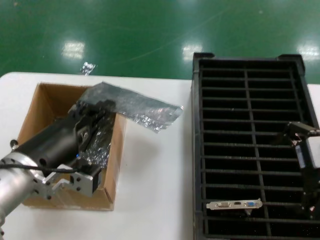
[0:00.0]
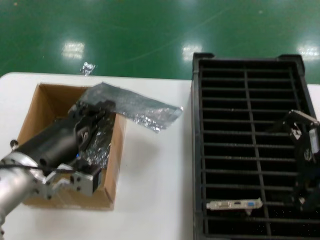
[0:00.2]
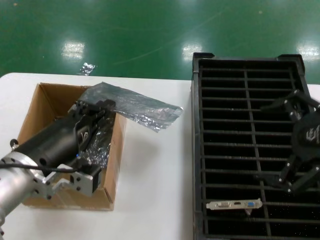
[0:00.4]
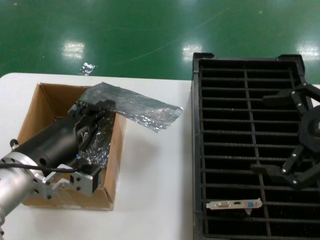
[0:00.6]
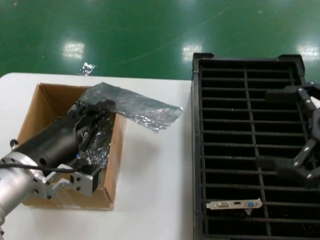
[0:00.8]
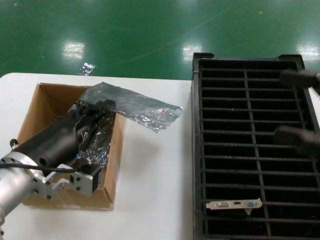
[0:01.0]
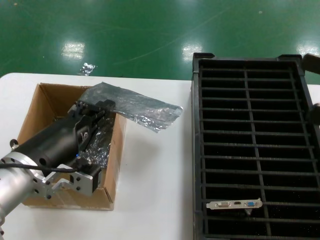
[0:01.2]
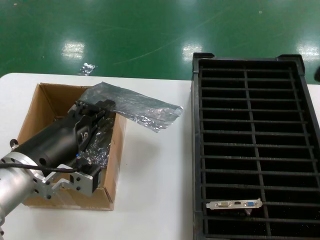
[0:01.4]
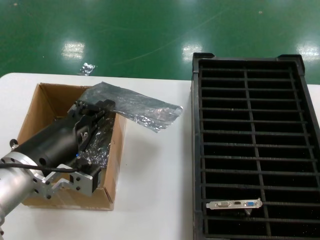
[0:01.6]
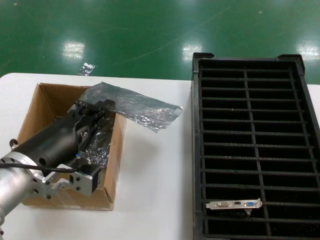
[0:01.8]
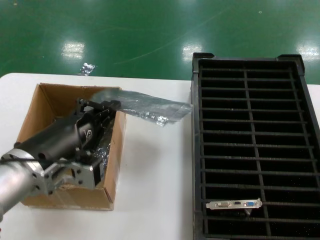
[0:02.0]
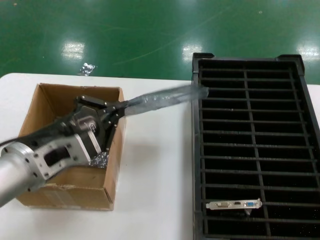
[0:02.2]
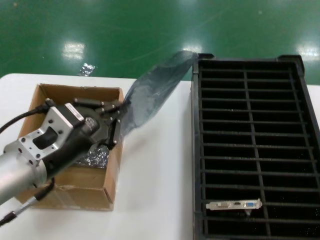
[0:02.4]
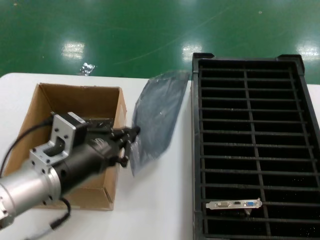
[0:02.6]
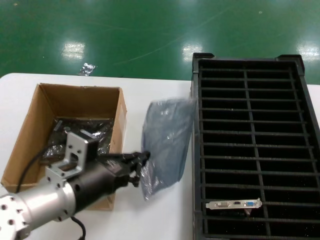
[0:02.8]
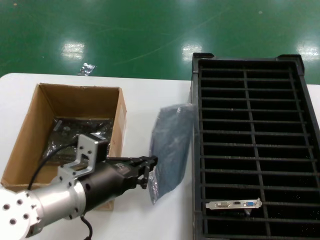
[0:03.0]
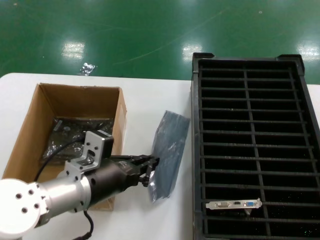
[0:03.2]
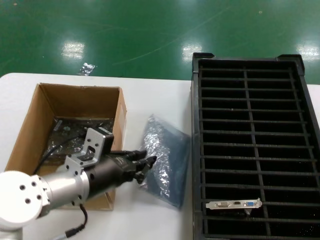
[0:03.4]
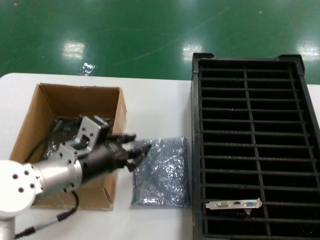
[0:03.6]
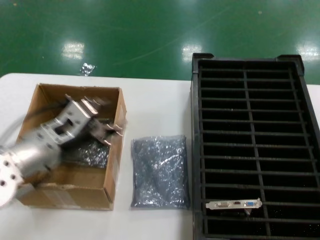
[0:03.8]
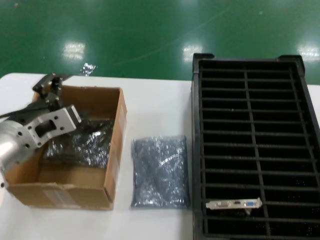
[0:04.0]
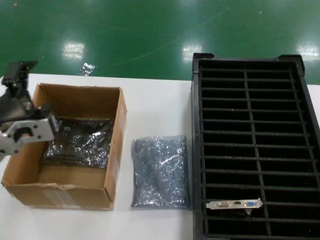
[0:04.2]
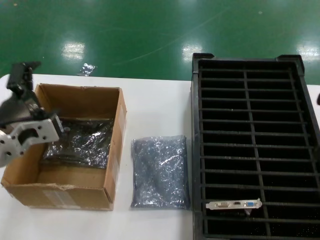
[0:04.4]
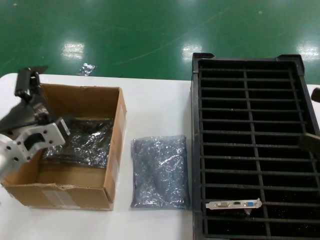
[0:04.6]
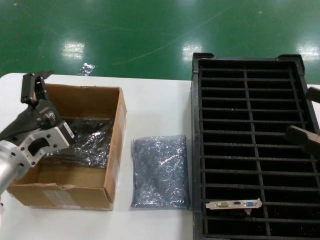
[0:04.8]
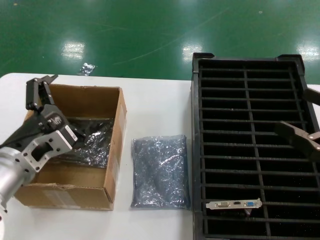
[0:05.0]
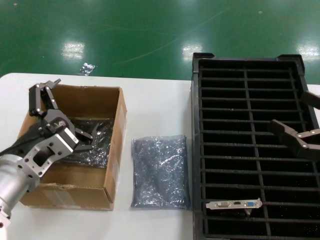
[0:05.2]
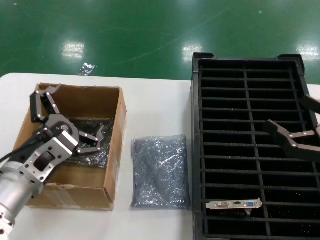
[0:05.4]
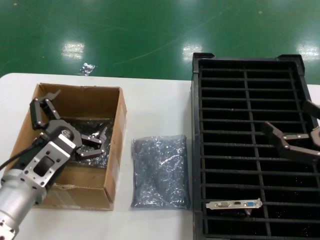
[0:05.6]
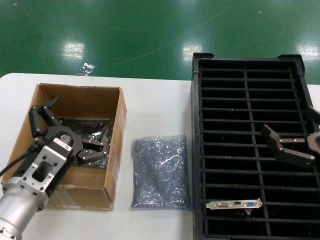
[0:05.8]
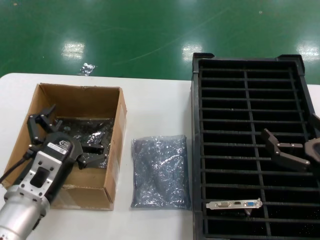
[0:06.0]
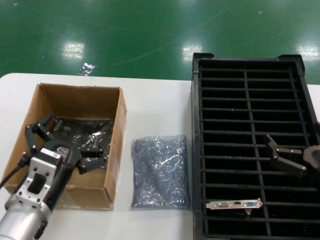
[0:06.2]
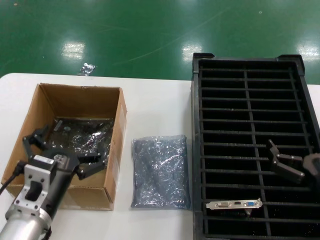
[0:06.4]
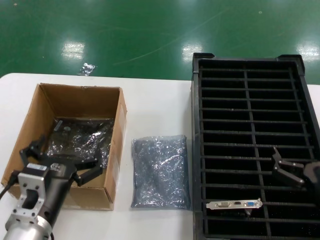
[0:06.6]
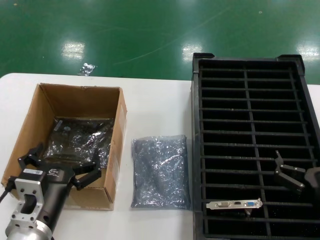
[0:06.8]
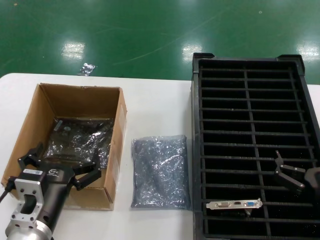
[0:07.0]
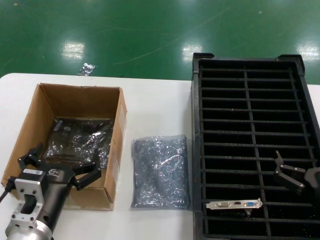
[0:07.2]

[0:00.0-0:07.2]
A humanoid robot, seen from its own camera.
Task of the whole recording: take out graphics card from box remove packaging put into black container.
Step, 0:00.0 to 0:03.4: Place the down the bag.
0:00.0 to 0:01.4: The right hand travels to the right by roughly 15 cm.
0:02.8 to 0:04.4: The left hand is displaced to the left by about 5 cm.
0:04.4 to 0:05.8: The left hand travels downward by roughly 10 cm. The right hand goes roughly 15 cm downward and to the left.
0:05.8 to 0:07.2: The left hand moves downward, roughly 5 cm, while the right hand goes about 10 cm downward and to the left.

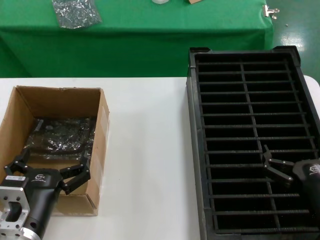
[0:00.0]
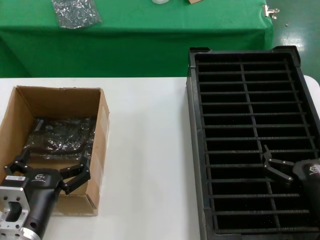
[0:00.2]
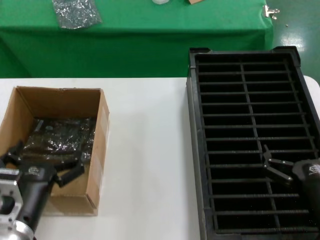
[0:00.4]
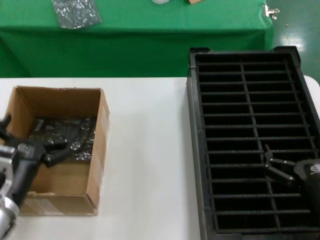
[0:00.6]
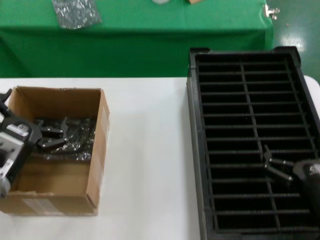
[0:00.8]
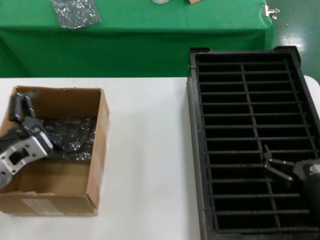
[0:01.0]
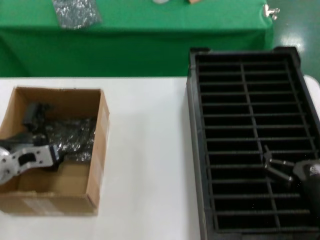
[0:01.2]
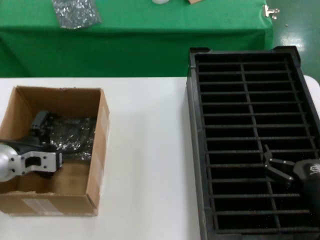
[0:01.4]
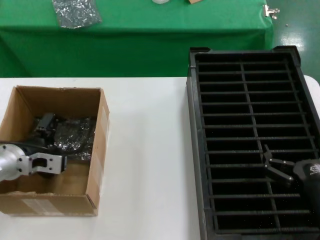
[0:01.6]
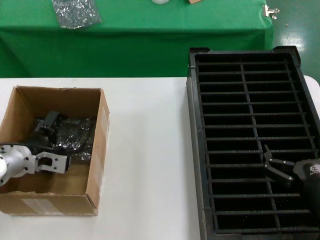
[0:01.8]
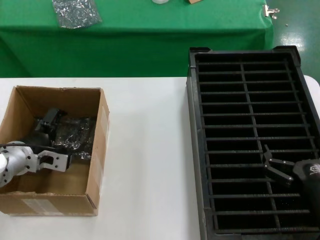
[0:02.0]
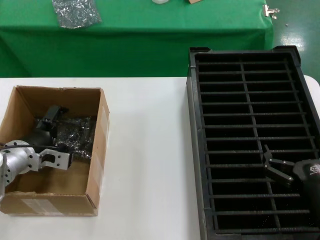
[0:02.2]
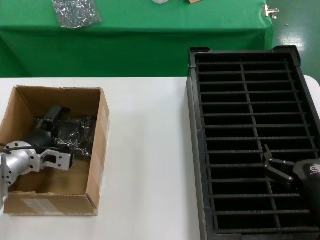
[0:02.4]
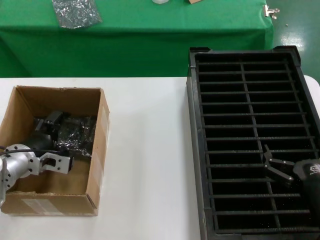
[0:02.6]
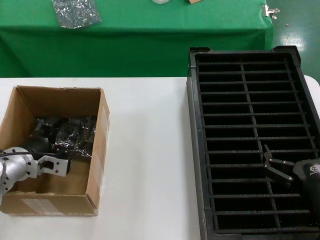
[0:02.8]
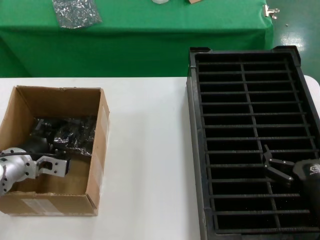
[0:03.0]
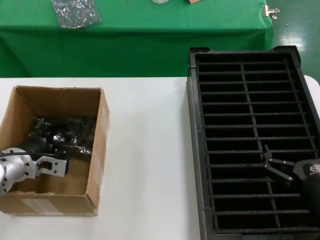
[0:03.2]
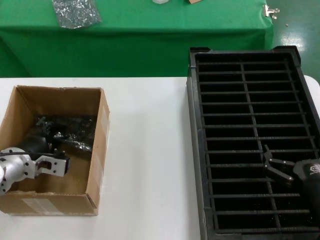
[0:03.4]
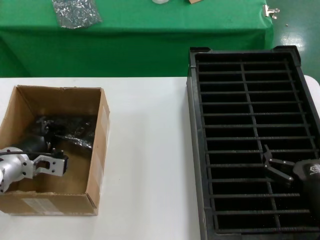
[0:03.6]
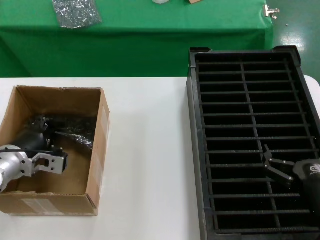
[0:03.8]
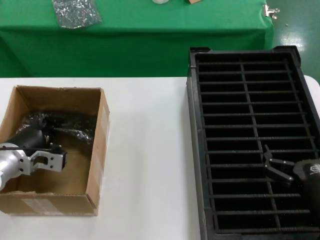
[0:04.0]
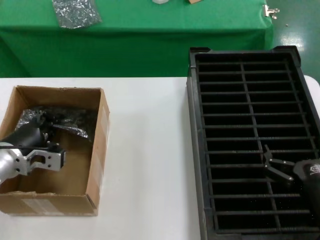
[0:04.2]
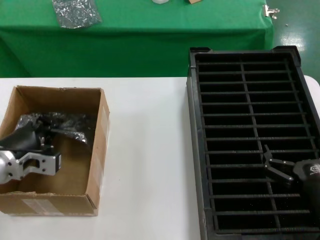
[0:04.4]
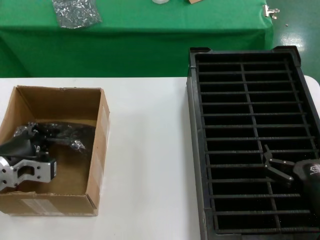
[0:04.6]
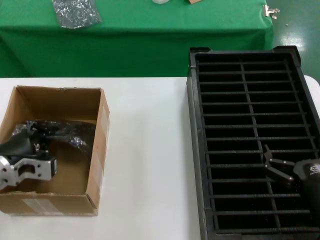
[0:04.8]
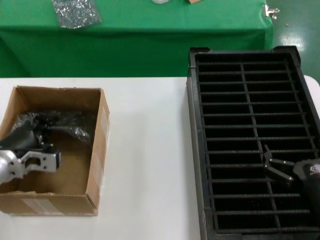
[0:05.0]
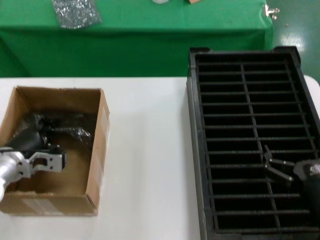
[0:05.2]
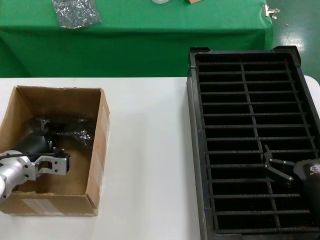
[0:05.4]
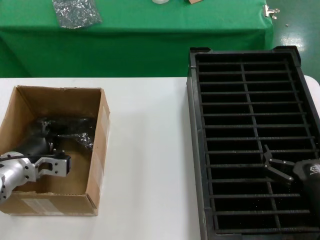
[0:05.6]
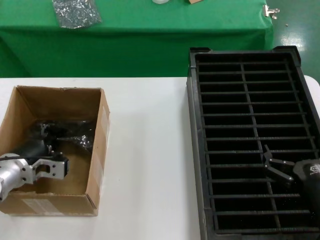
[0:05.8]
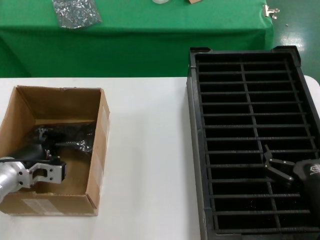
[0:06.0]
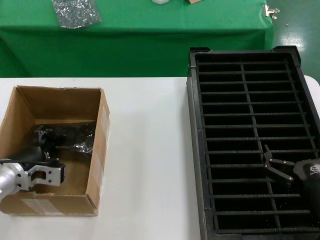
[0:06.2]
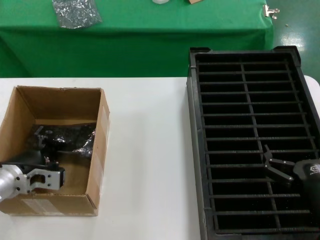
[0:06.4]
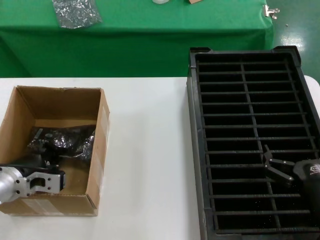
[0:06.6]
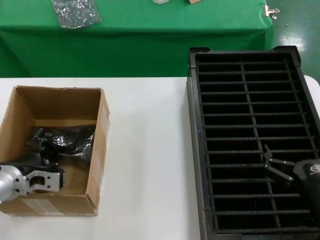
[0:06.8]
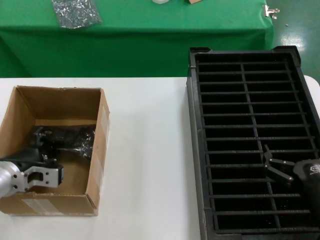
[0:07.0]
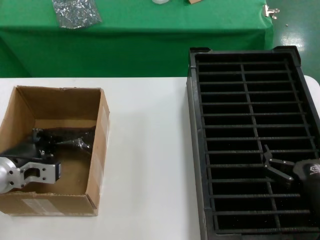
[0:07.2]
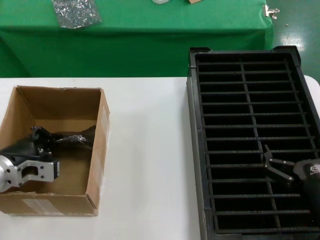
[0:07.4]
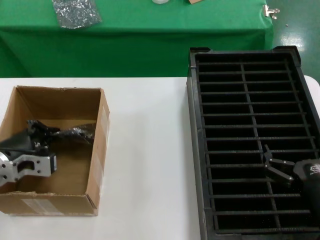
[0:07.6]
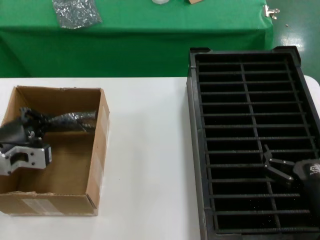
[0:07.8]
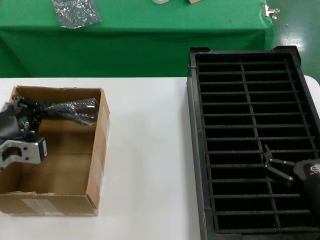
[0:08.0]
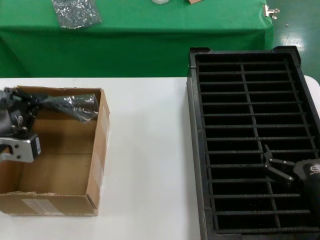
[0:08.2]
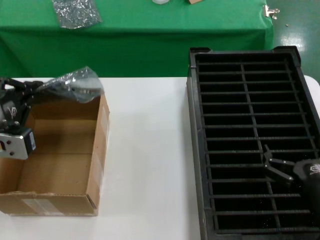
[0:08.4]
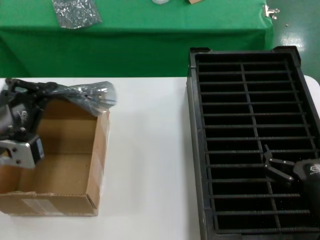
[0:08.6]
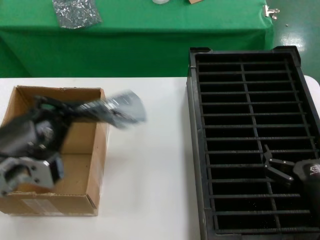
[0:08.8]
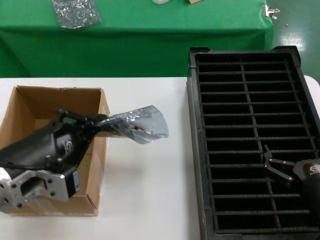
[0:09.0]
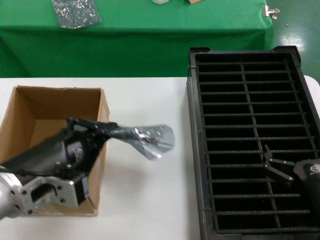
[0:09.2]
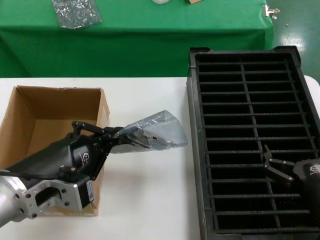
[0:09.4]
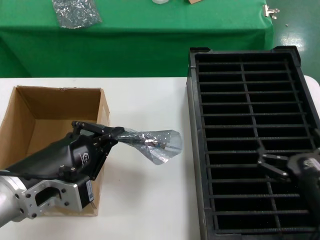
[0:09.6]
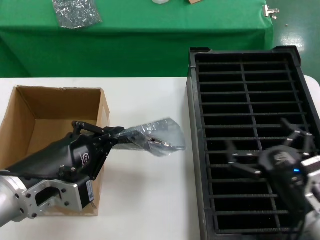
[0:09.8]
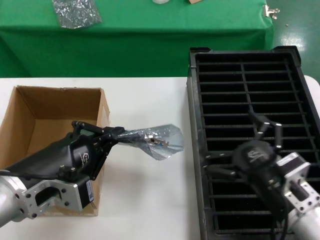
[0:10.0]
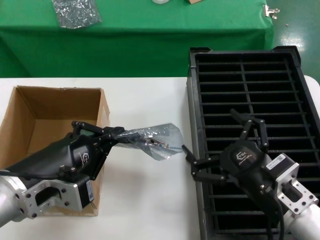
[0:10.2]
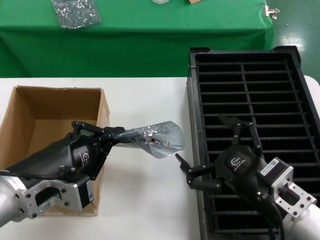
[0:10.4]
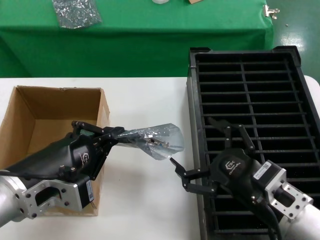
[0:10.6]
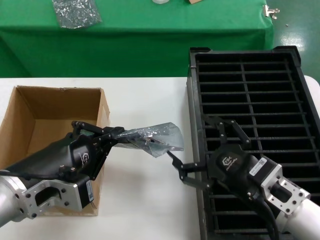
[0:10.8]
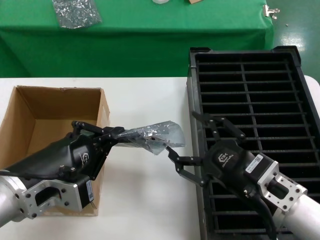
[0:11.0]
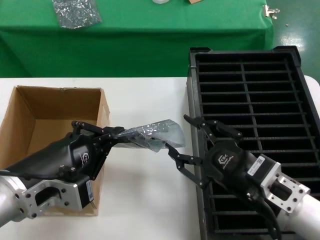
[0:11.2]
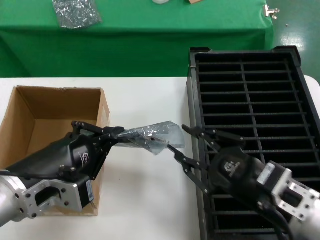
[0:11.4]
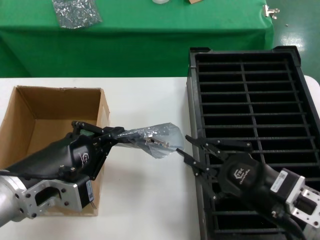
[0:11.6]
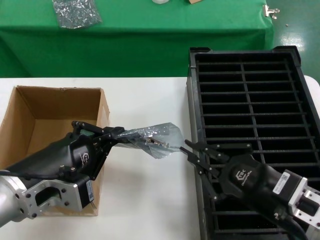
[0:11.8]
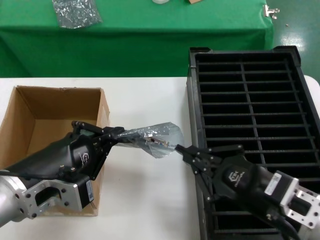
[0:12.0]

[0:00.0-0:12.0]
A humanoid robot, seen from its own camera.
Task of the whole recording: take out graphics card from box remove packaging put into black container.
Step, 0:00.0 to 0:07.0: Grasp the bag.
Step, 0:07.2 to 0:09.4: Lift the bag.
0:00.0 to 0:01.6: The left hand shifts some 20 cm forward and to the left.
0:01.6 to 0:03.0: The hands move only a little.
0:03.0 to 0:04.4: The left hand heads backward, covering about 5 cm.
0:04.4 to 0:06.0: The left hand changes place by approximately 5 cm.
0:06.0 to 0:07.6: The left hand goes roughly 5 cm upward.
0:07.6 to 0:09.0: The left hand shifts roughly 15 cm backward, upward and to the right.
0:09.0 to 0:10.4: The right hand goes about 10 cm to the left and upward.
0:10.4 to 0:12.0: The hands stay close to where they were, moving slightly.

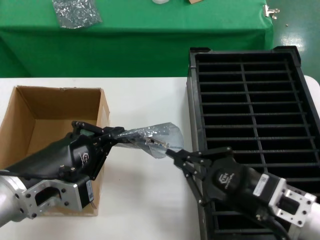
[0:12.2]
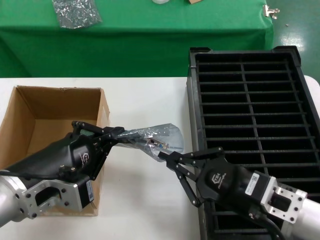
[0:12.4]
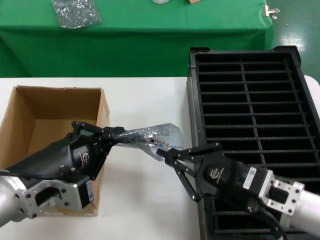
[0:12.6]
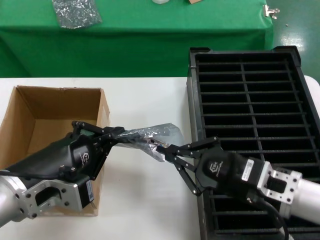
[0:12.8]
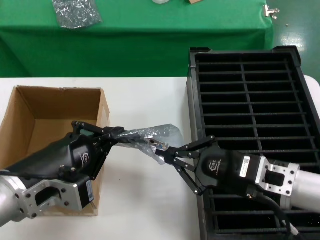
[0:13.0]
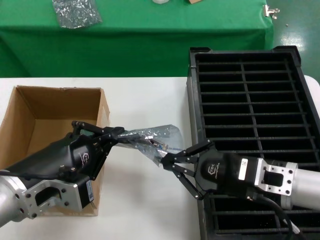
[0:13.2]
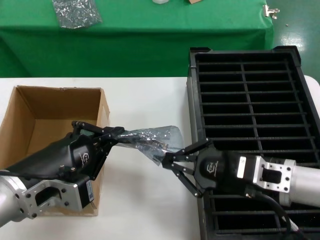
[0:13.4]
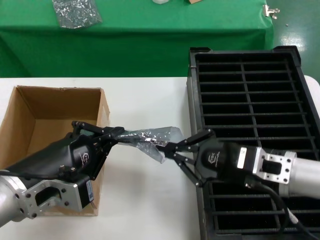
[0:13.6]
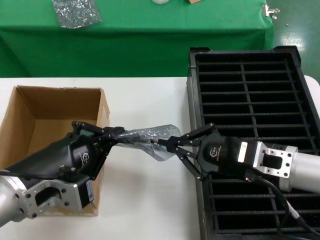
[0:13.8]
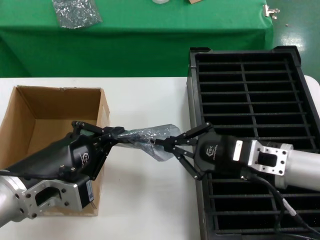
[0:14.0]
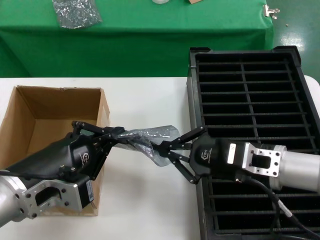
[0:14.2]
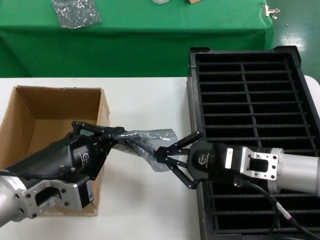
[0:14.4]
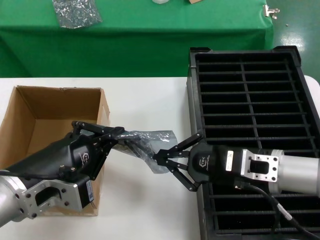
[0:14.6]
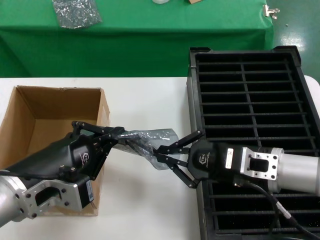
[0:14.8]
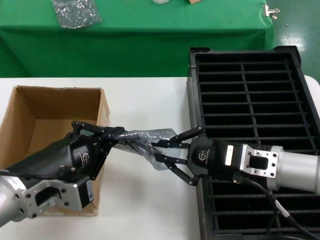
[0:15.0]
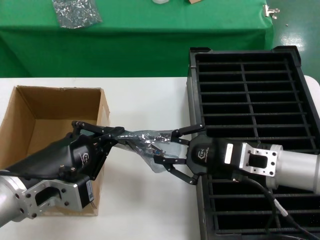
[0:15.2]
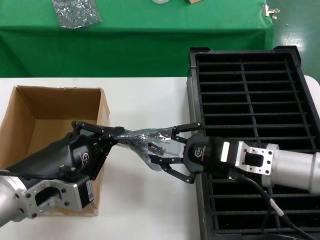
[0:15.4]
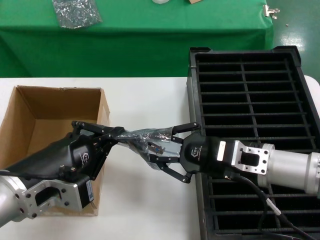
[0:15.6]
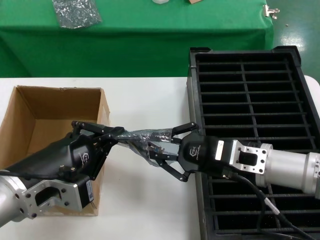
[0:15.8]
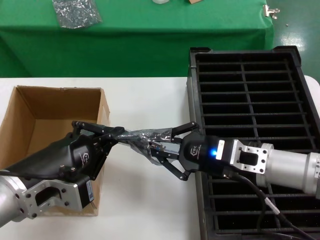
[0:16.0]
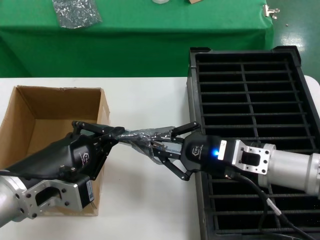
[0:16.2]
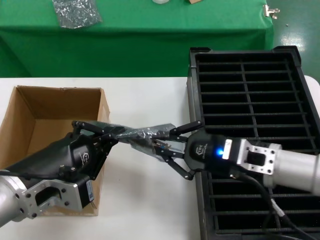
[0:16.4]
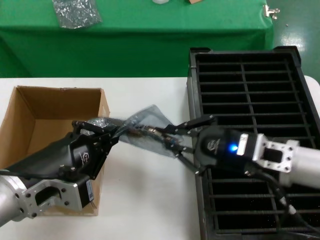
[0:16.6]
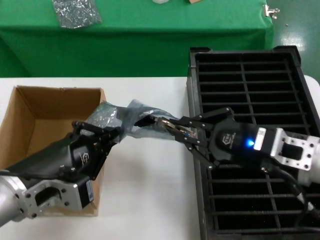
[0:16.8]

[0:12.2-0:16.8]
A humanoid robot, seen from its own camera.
Task of the whole recording: take out graphics card from box remove packaging put into black container.
0:12.2 to 0:13.8: The right hand goes some 10 cm forward.
0:13.8 to 0:15.2: The hands make only small movements.
0:15.2 to 0:16.8: The right hand ends up approximately 5 cm from where it was.
